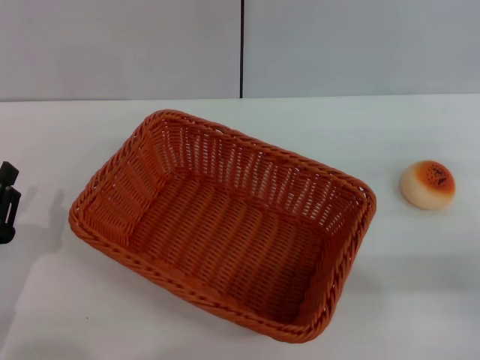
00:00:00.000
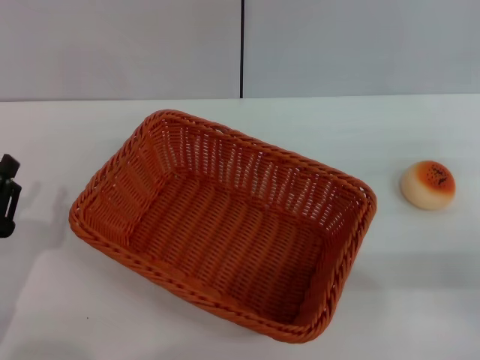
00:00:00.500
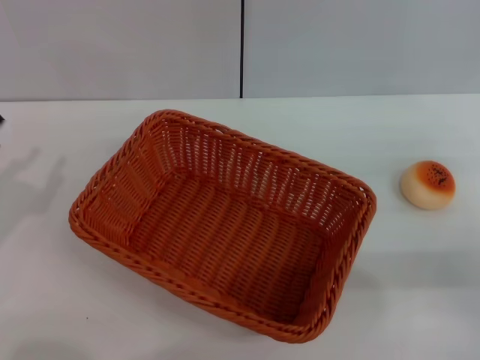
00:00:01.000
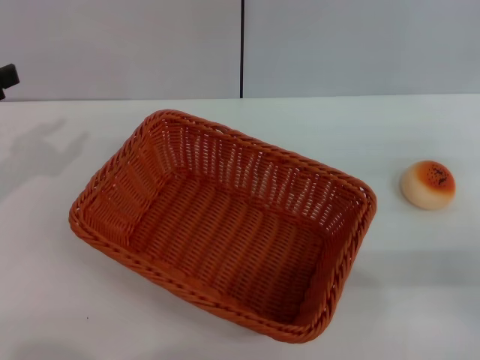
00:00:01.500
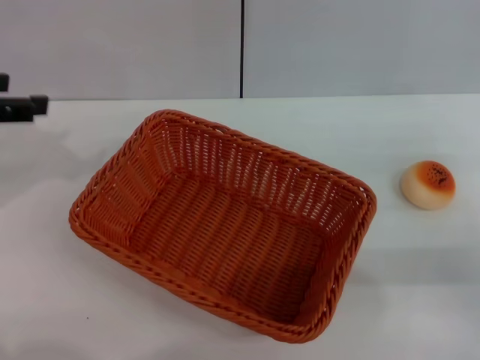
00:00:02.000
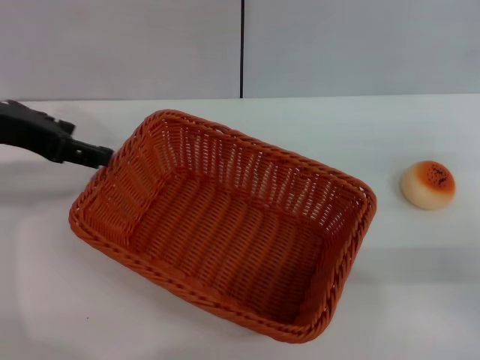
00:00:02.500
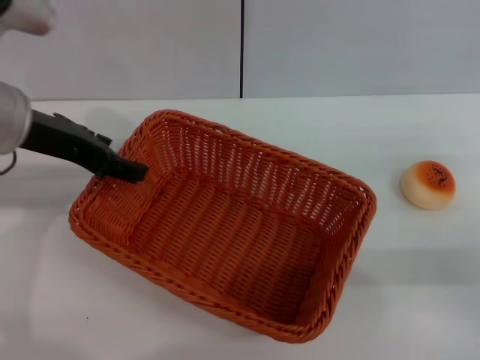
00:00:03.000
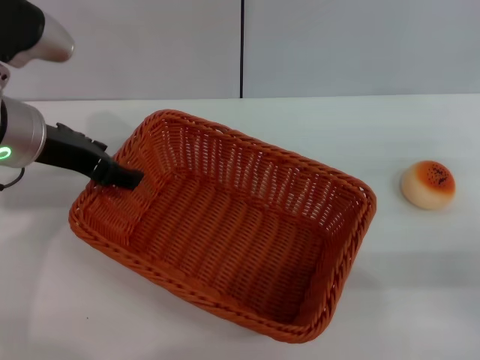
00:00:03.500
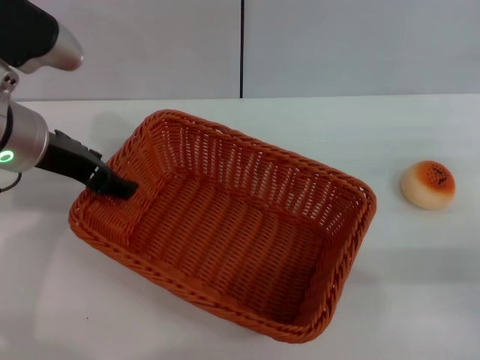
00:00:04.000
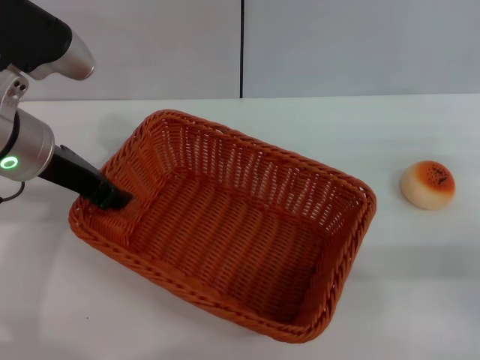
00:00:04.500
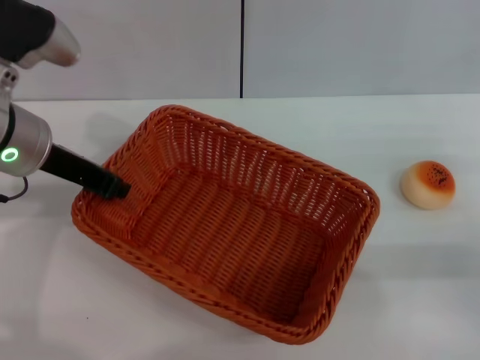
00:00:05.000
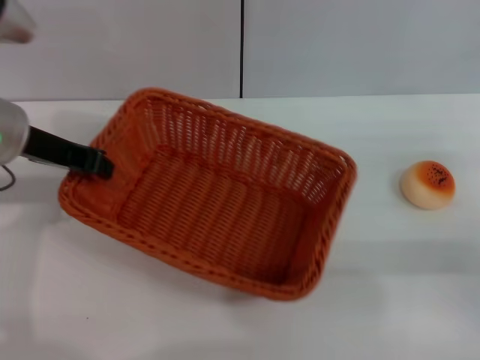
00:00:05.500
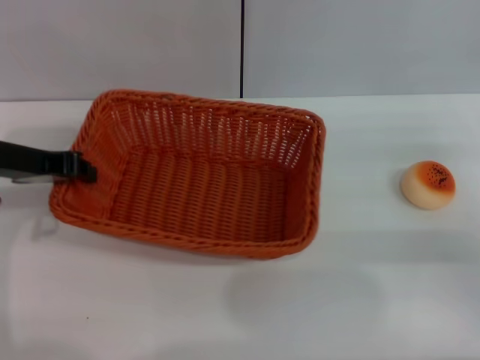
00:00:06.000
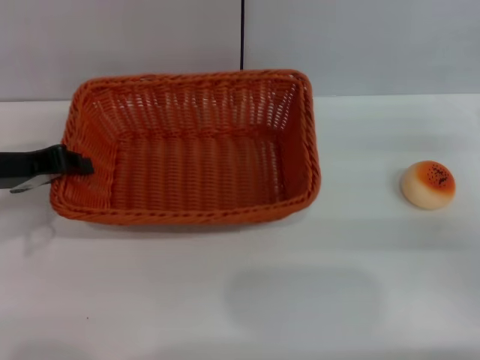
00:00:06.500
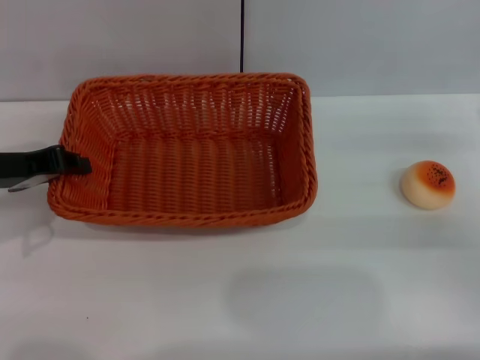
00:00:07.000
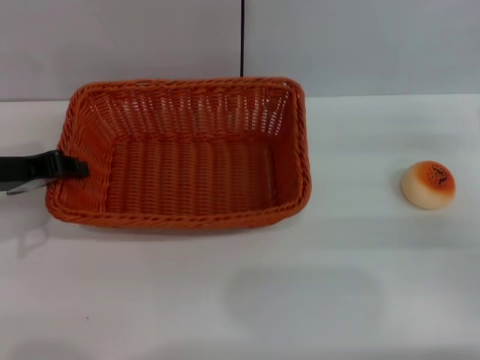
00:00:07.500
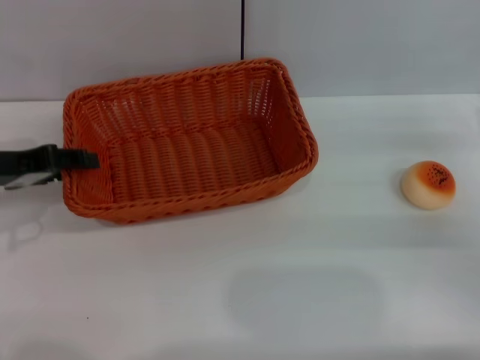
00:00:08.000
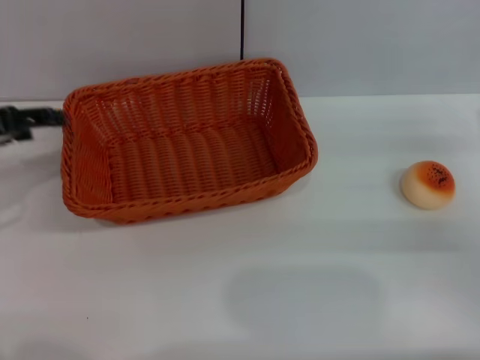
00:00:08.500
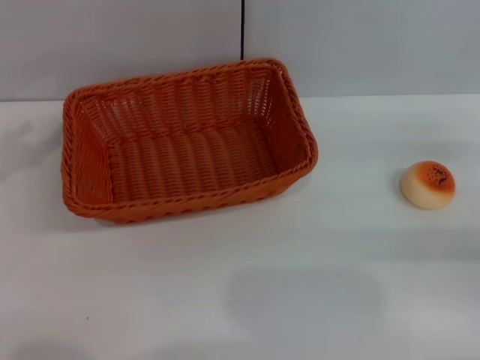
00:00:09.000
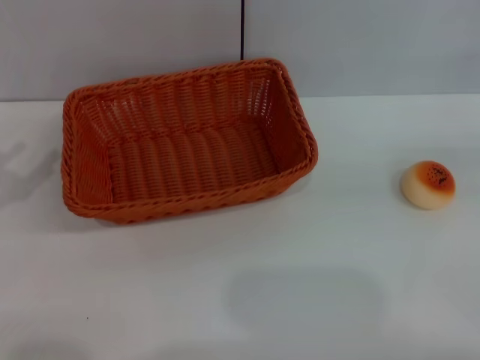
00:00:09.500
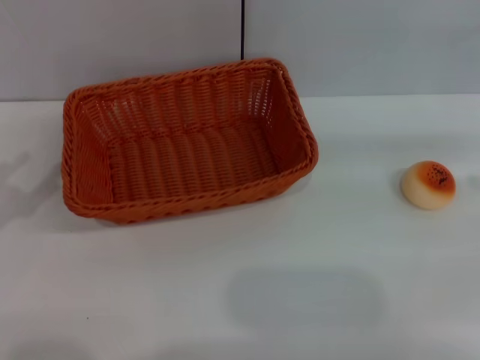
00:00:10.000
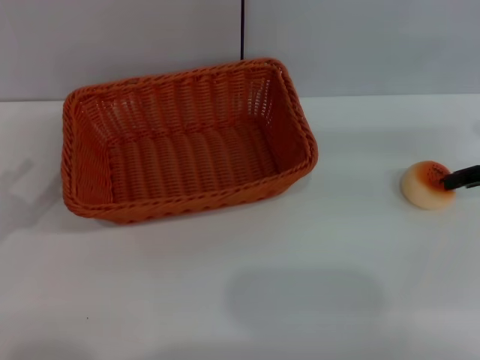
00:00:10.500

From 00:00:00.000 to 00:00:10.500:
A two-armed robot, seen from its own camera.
Step, from 00:00:00.000 to 00:00:08.000: Move the basket to the center of view with the left gripper.
From 00:00:00.000 to 00:00:02.000: The left gripper shifts roughly 25 cm upward and forward.
From 00:00:02.000 to 00:00:04.000: The left gripper moves to the right, roughly 10 cm.
From 00:00:04.000 to 00:00:06.500: The left gripper shifts some 5 cm to the left, and closes its fingers.
From 00:00:06.500 to 00:00:08.500: The left gripper opens up.
From 00:00:08.500 to 00:00:10.500: The right gripper heads upward and forward, covering about 10 cm. The left gripper heads backward and downward, covering about 15 cm.

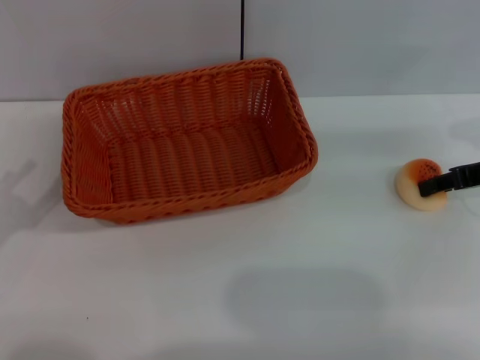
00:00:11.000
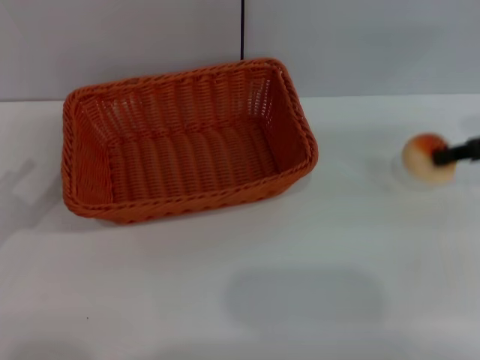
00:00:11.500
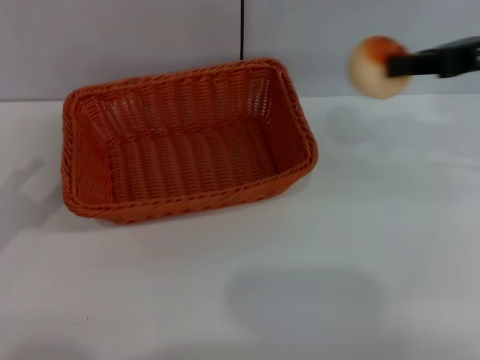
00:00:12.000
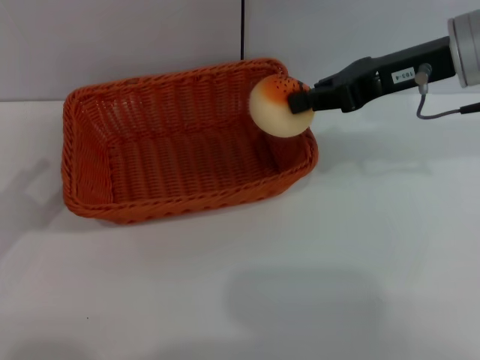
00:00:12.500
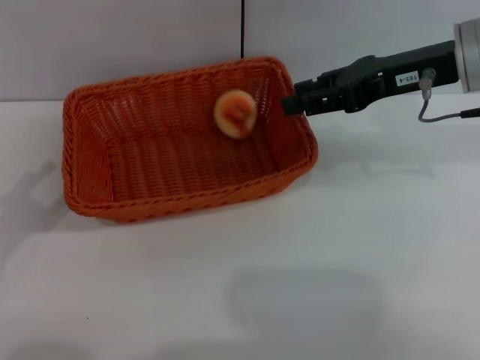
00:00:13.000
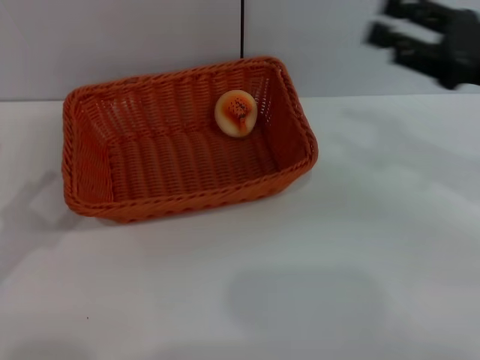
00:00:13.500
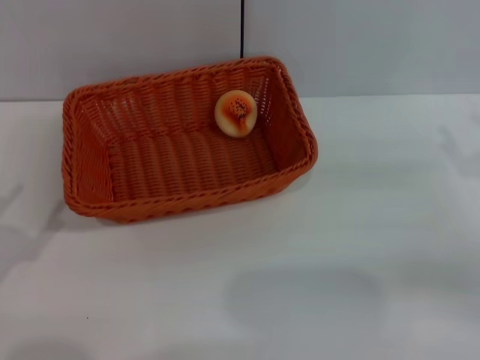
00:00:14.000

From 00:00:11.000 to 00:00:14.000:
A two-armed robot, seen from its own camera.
Step, from 00:00:12.000 to 00:00:13.000: Place the egg yolk pastry into the basket with the right gripper.
From 00:00:11.000 to 00:00:12.500: The right gripper shifts about 15 cm to the left and upward, and closes.
From 00:00:12.500 to 00:00:14.000: The right gripper travels downward, to the right and backward by some 25 cm, and opens up; the left gripper changes place by approximately 5 cm.
